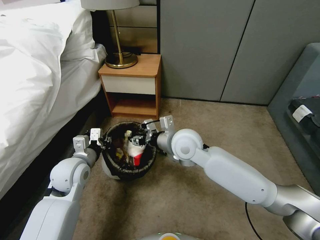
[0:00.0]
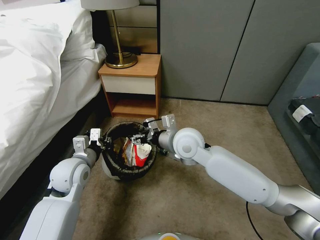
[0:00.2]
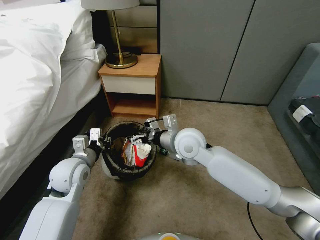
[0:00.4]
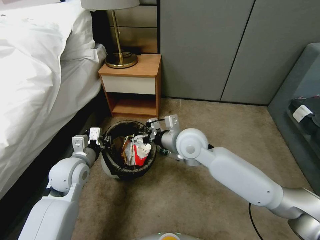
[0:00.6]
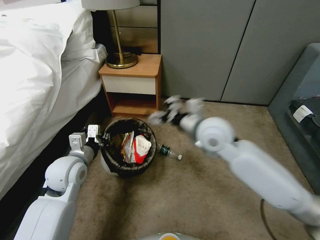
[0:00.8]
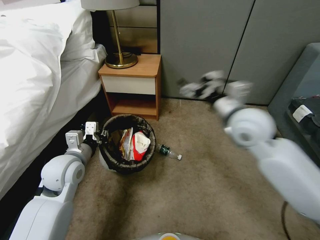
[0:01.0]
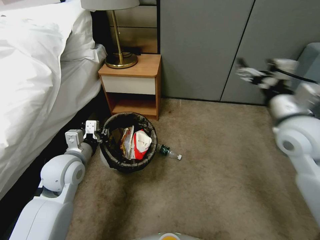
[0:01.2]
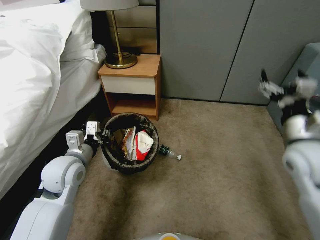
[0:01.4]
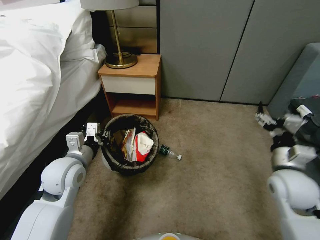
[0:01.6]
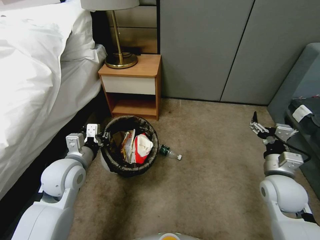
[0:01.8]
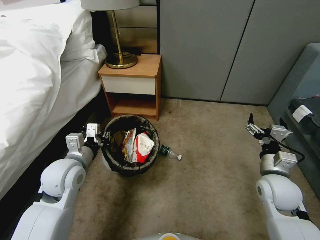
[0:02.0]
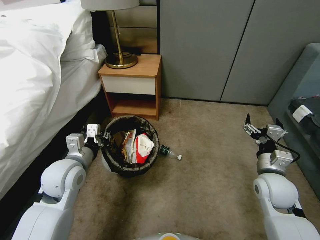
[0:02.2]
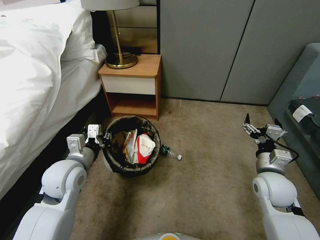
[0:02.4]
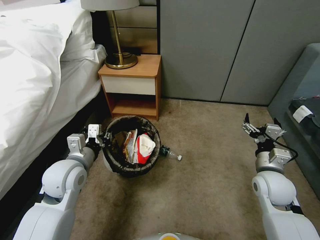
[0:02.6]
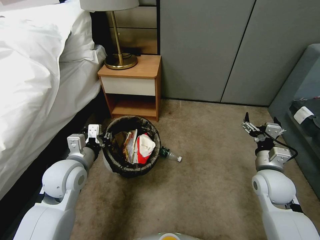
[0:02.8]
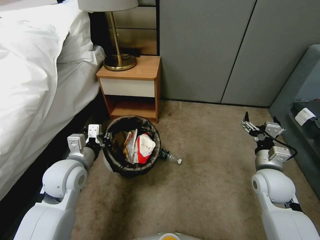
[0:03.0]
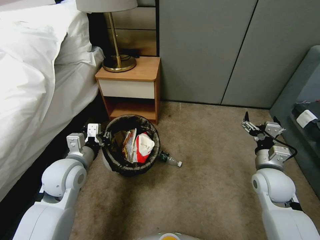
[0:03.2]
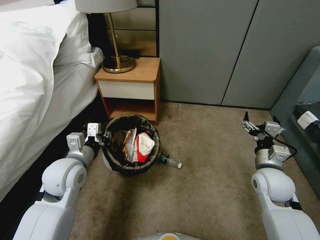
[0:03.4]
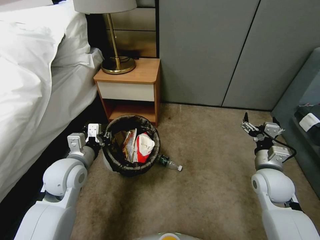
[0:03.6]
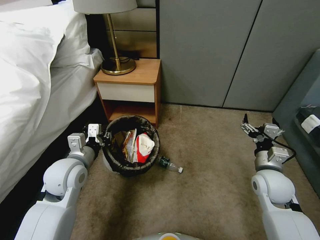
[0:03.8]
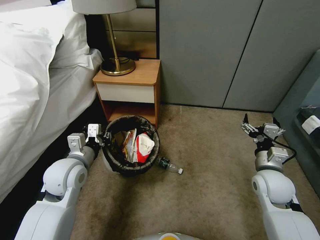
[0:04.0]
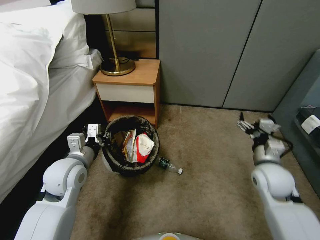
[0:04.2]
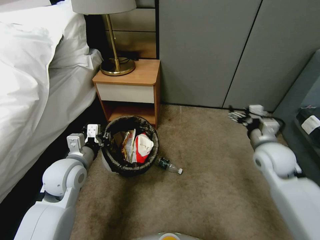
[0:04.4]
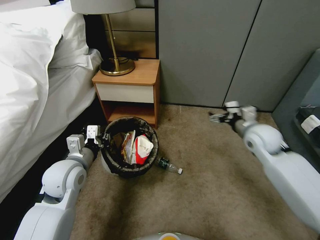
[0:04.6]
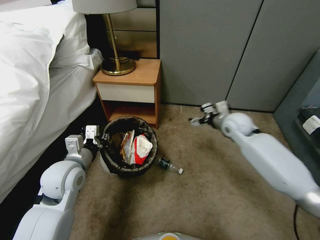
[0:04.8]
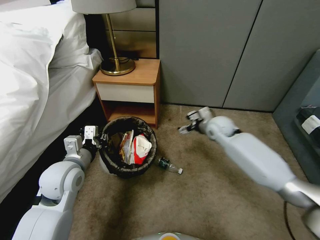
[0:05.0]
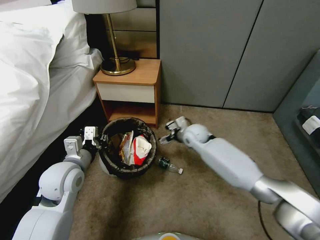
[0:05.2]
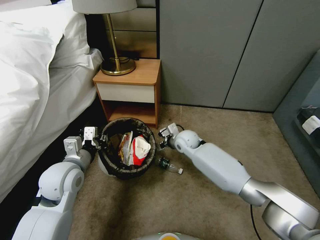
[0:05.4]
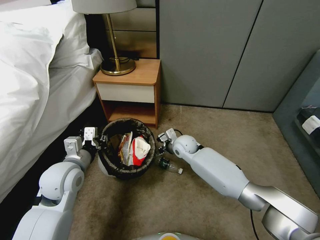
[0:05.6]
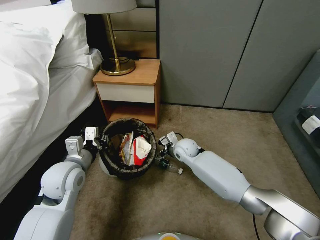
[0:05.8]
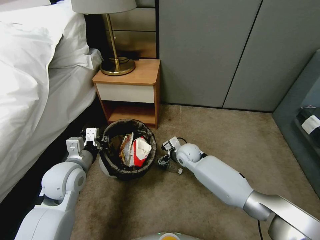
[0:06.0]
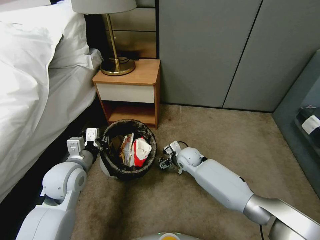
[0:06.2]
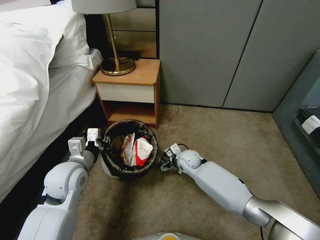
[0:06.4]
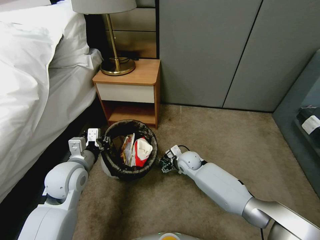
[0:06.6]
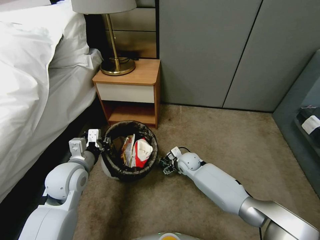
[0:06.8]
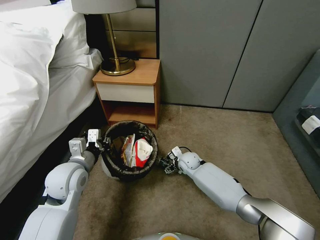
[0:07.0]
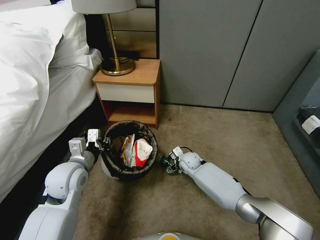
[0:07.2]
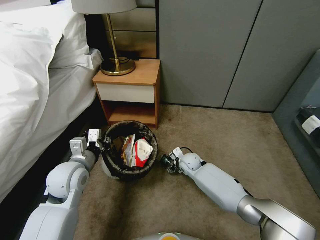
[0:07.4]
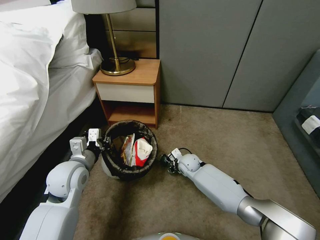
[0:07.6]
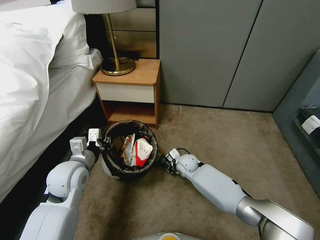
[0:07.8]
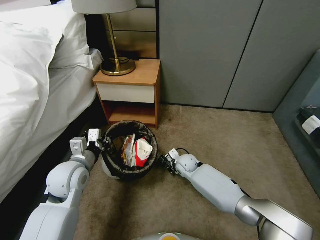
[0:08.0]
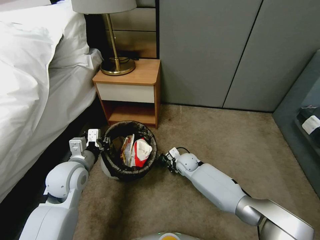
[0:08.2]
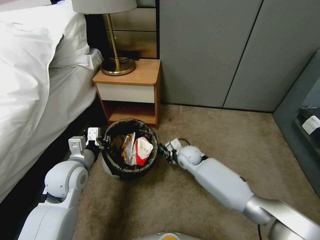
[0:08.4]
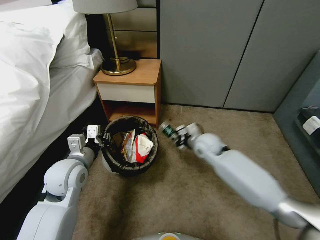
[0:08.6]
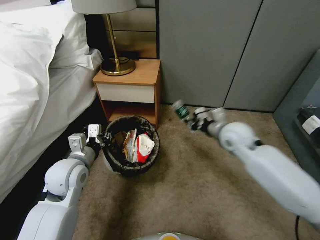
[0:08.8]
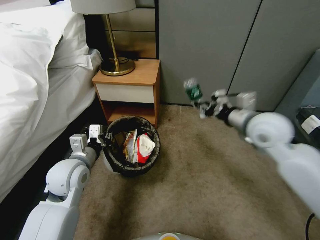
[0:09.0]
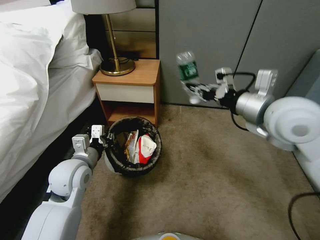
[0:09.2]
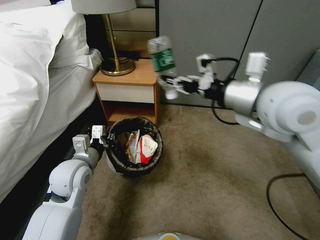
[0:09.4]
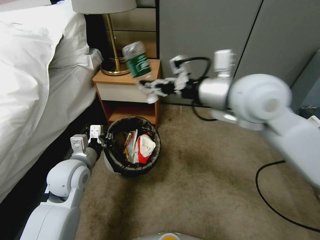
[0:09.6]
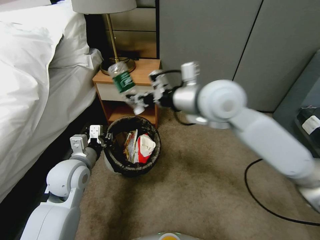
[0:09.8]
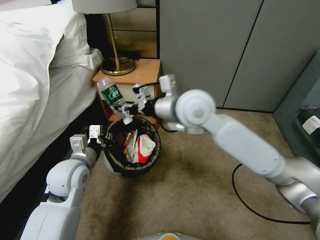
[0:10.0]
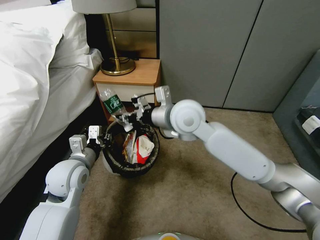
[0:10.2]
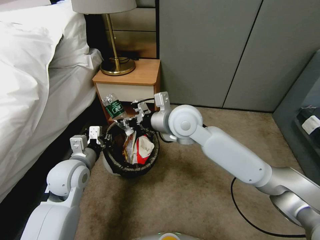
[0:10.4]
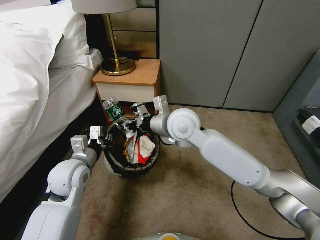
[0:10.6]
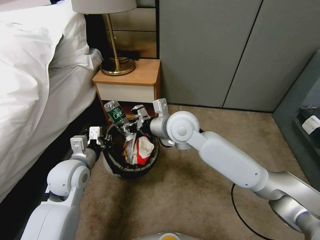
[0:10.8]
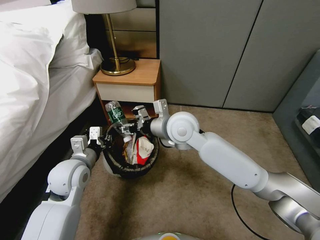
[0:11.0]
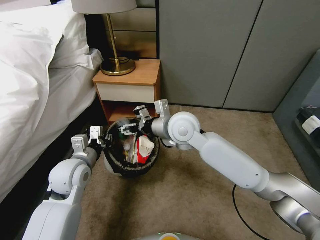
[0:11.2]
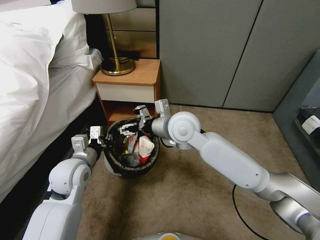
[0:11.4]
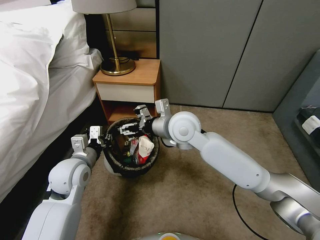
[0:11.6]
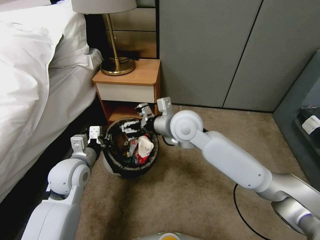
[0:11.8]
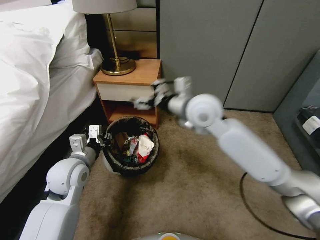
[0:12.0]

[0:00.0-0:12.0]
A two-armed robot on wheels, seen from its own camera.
Task of the whole recording: Pick up the trash bin, then pick up the garbage from the floor and place it into the trash bin.
0:00.0 to 0:01.6: The right gripper shifts some 25 cm to the right, and opens.
0:01.6 to 0:03.0: The right gripper shifts by about 5 cm.
0:03.0 to 0:04.4: The right gripper is displaced upward by approximately 5 cm.
0:04.4 to 0:06.0: The right gripper travels to the left, downward and forward by approximately 30 cm.
0:06.0 to 0:07.6: The right gripper moves downward, about 5 cm, and closes.
0:07.6 to 0:09.0: The right gripper moves upward and to the right, roughly 35 cm, and closes.
0:09.0 to 0:10.4: The right gripper moves to the left, approximately 20 cm.
0:10.4 to 0:12.0: The right gripper ends up roughly 5 cm from where it was, and opens.

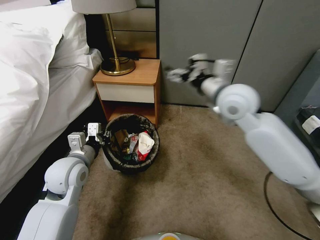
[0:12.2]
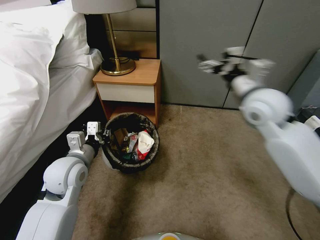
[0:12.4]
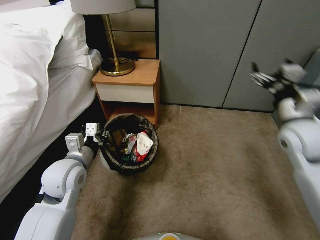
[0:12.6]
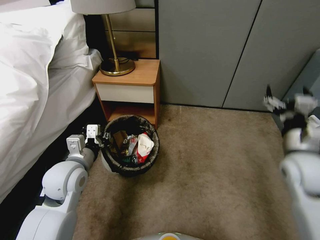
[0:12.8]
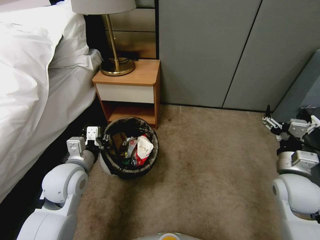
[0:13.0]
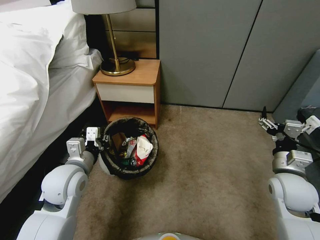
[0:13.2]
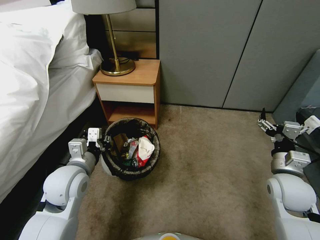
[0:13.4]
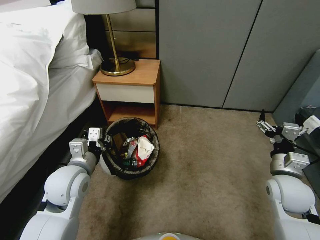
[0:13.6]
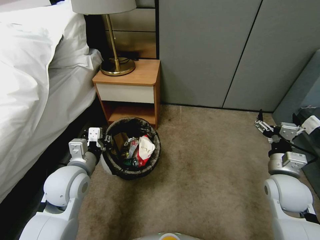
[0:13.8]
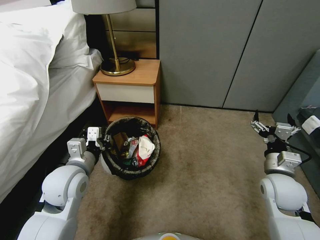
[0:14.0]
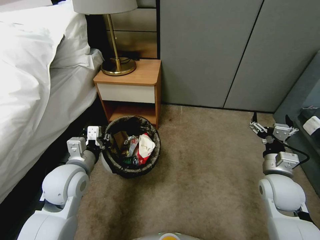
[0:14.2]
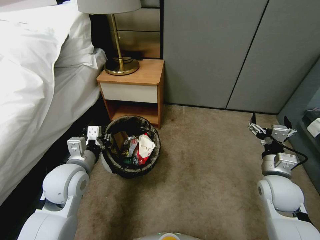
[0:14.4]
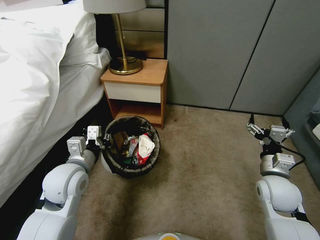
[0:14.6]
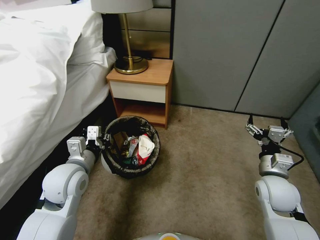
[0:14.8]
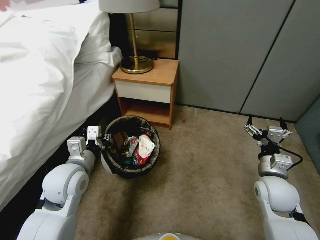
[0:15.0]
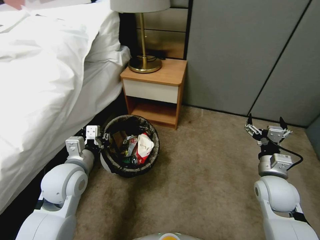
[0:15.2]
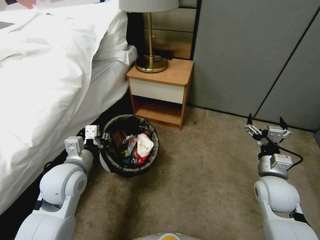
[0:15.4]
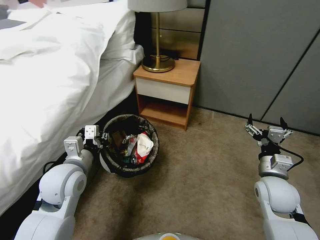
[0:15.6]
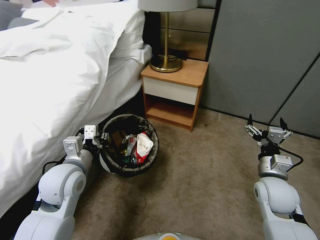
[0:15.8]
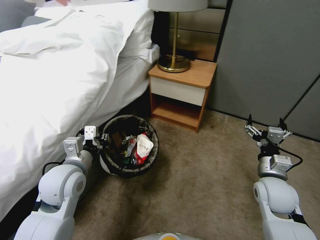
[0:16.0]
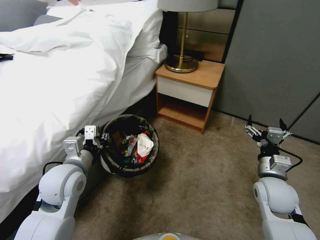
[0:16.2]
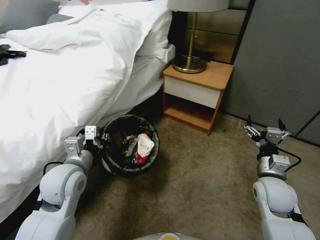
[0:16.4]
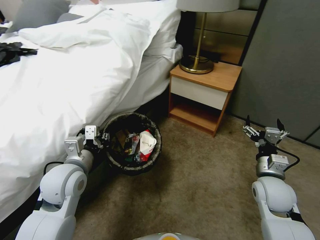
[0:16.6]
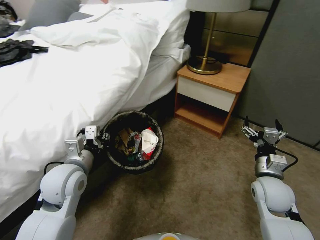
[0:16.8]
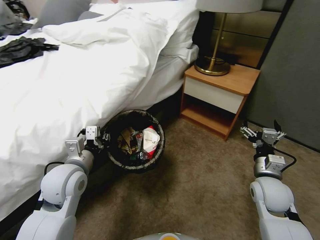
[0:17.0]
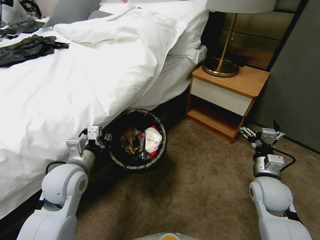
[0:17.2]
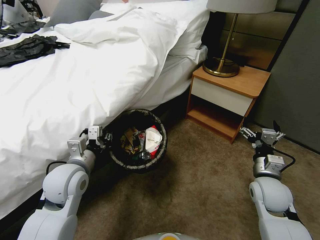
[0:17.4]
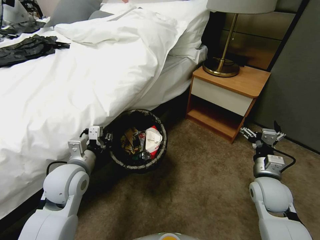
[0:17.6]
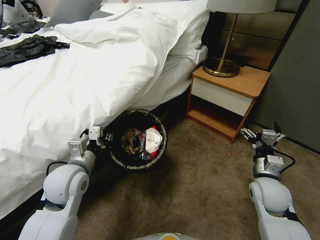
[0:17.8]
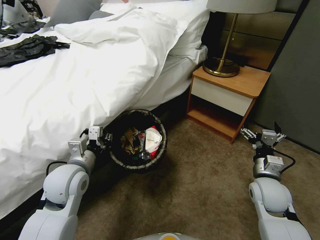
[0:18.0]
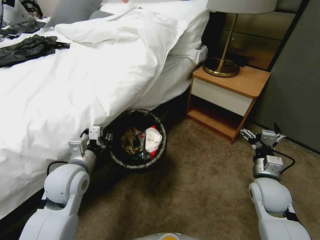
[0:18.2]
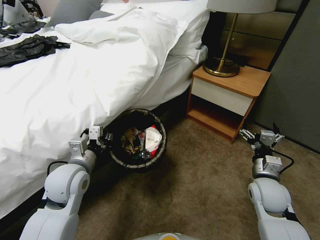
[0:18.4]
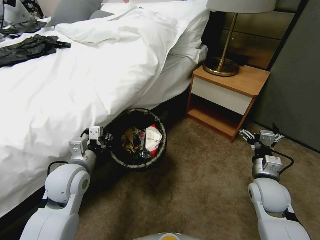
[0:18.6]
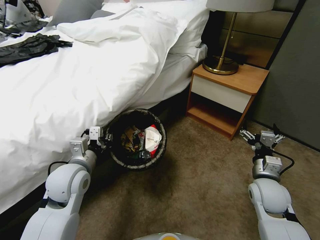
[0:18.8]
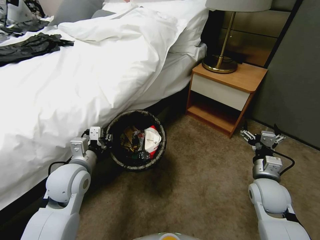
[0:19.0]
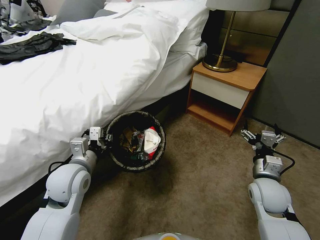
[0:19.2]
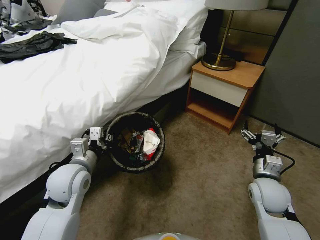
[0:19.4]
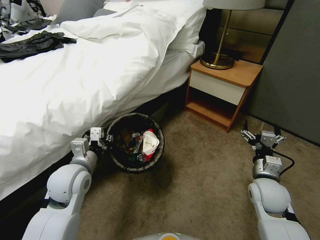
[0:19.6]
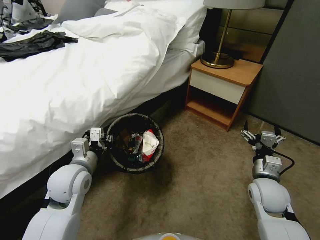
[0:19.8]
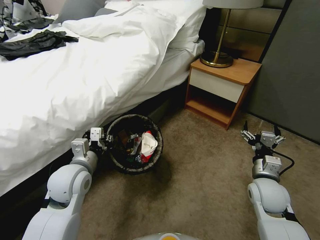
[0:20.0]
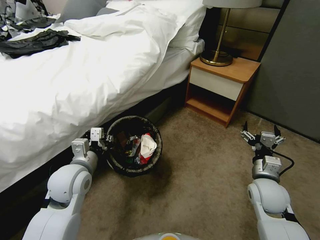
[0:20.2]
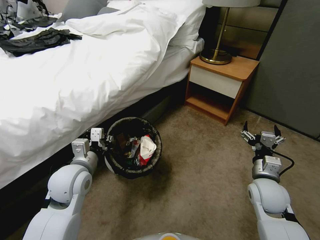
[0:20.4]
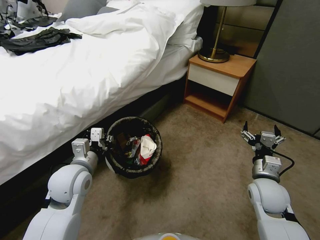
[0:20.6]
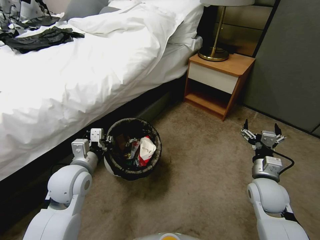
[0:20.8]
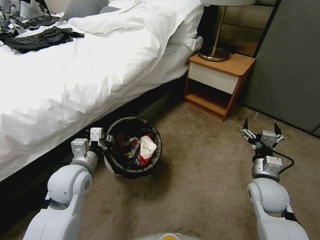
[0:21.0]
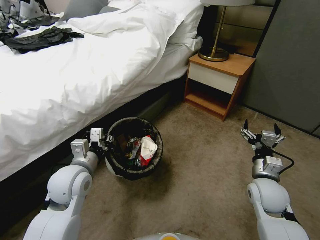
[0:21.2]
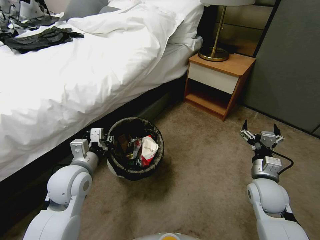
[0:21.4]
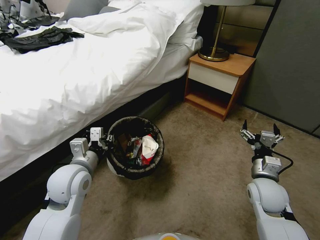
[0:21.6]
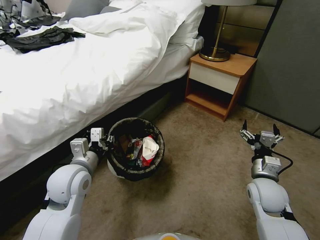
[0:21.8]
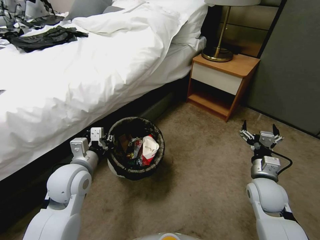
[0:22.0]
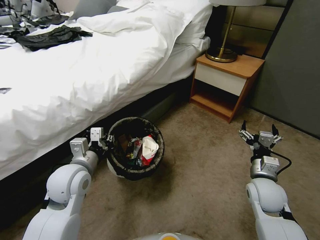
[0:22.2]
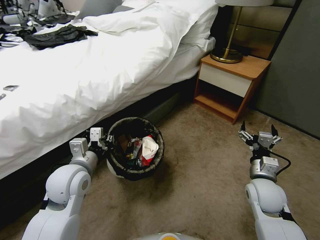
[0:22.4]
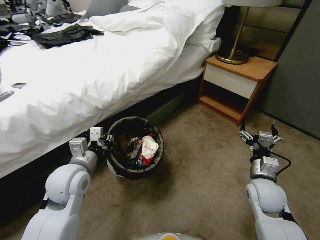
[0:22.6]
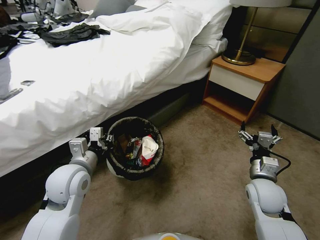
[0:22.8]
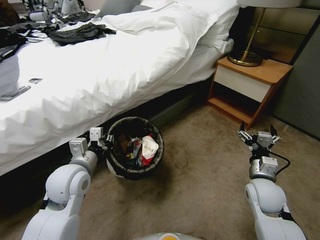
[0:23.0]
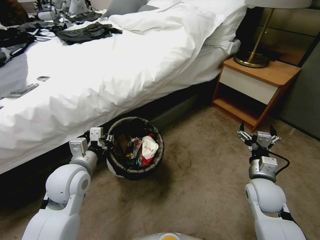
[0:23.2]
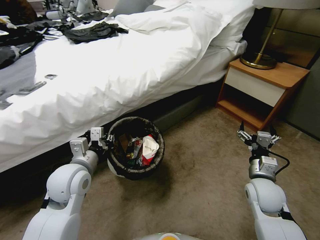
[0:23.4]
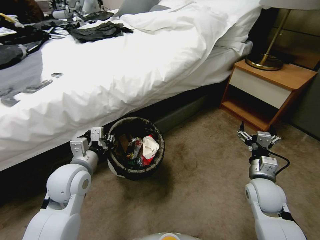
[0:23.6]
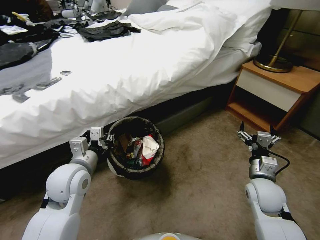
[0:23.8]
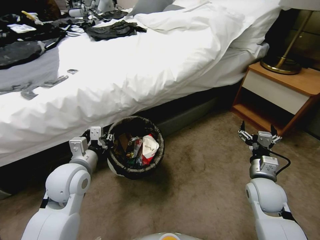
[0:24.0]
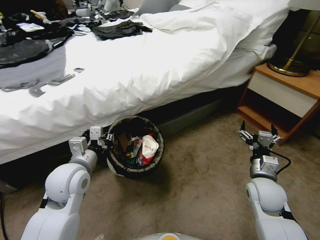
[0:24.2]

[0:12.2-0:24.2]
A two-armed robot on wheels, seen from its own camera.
Task of the whole recording: Pick up the trash bin, then pick up the garbage from the floor and place it into the trash bin.
0:12.2 to 0:13.8: The right gripper moves downward, to the right and backward, some 30 cm.
